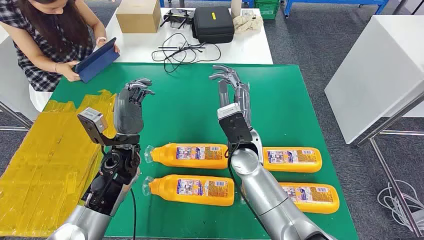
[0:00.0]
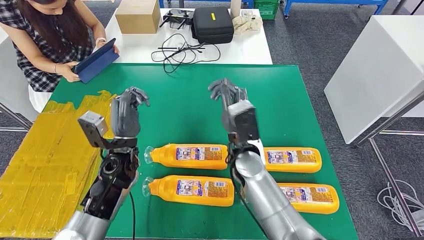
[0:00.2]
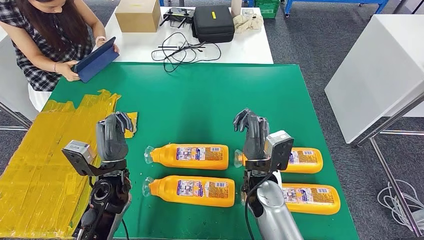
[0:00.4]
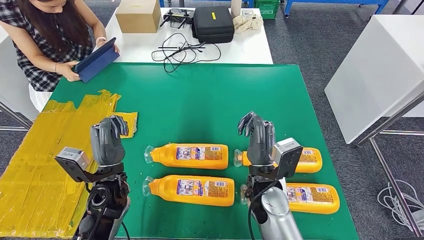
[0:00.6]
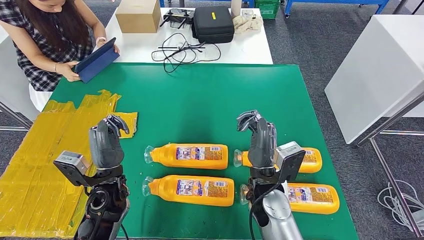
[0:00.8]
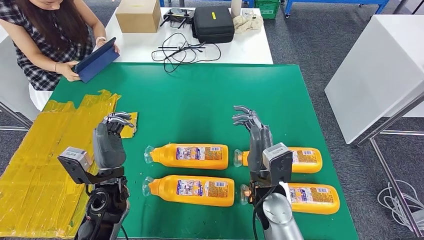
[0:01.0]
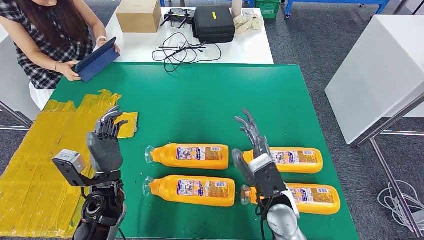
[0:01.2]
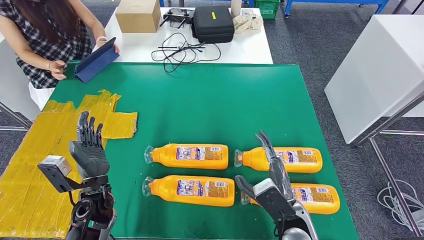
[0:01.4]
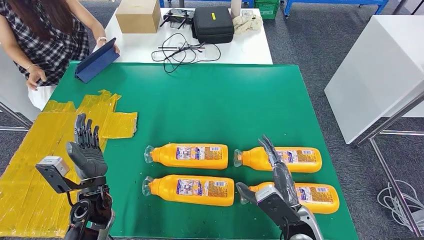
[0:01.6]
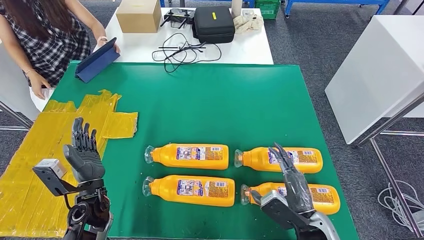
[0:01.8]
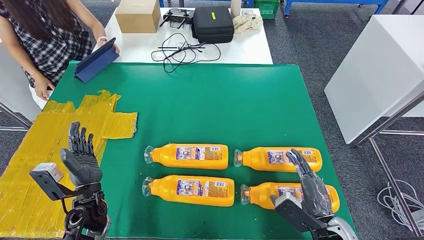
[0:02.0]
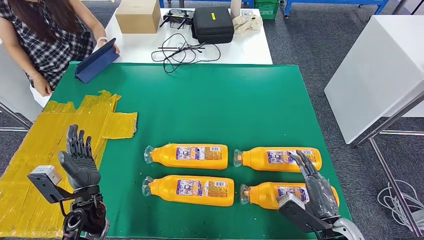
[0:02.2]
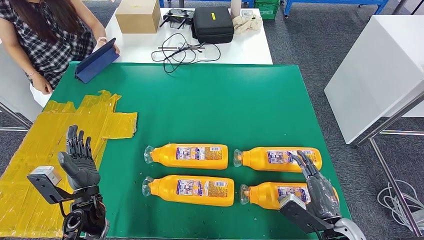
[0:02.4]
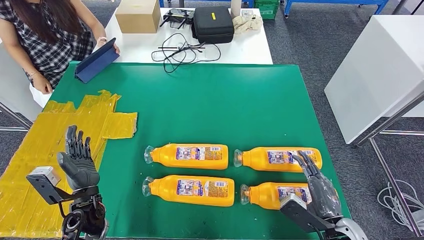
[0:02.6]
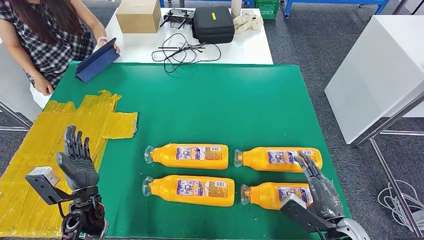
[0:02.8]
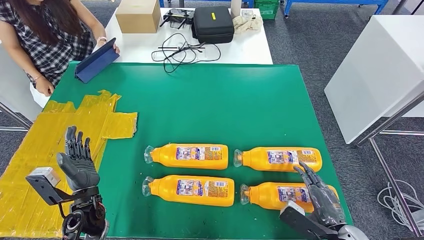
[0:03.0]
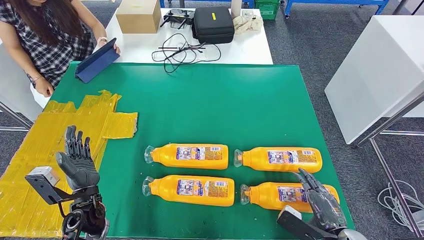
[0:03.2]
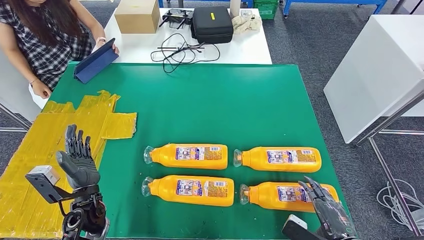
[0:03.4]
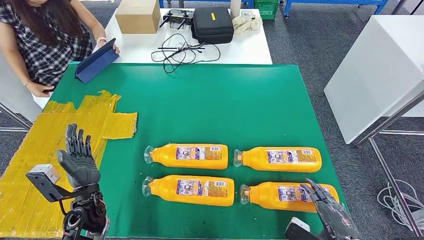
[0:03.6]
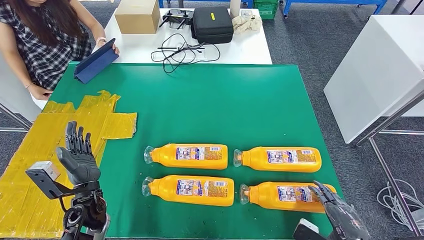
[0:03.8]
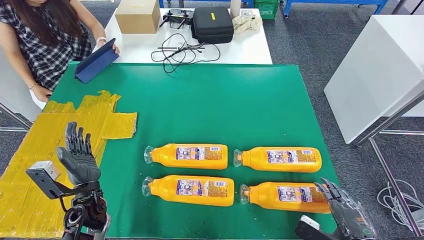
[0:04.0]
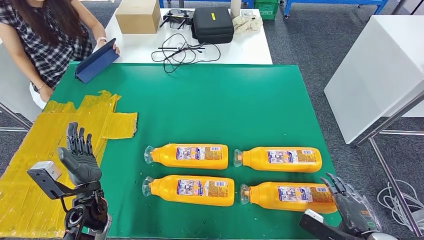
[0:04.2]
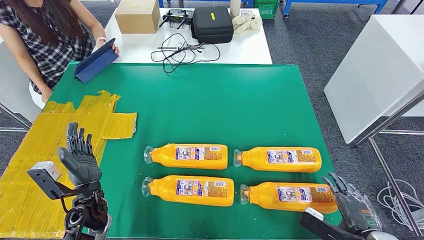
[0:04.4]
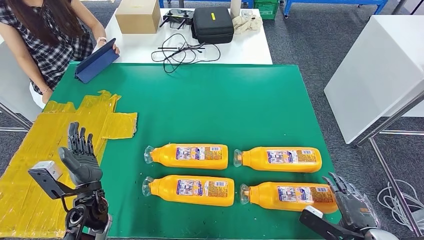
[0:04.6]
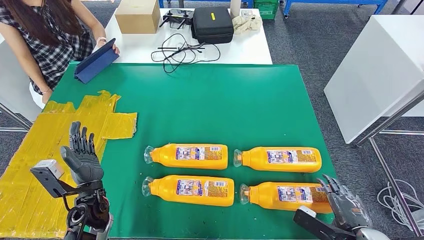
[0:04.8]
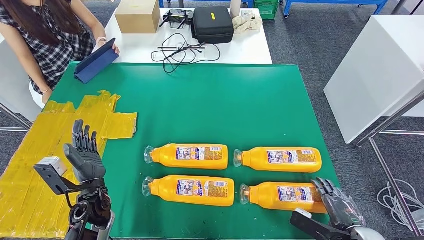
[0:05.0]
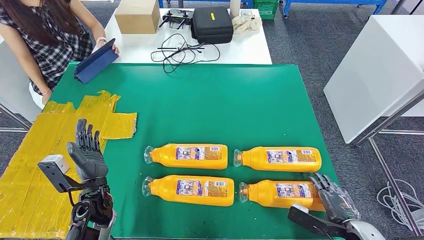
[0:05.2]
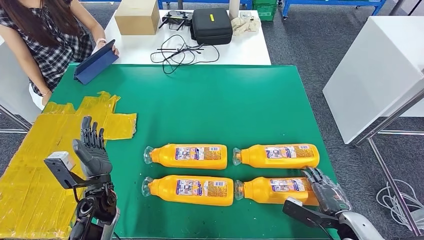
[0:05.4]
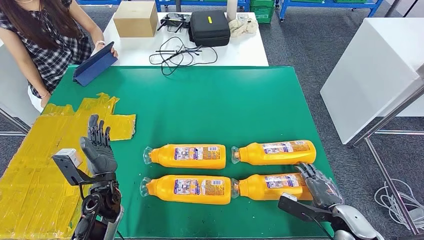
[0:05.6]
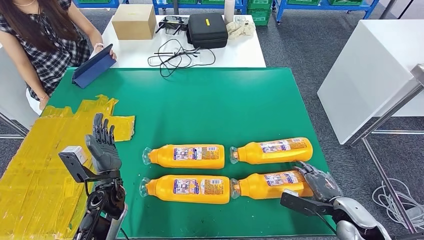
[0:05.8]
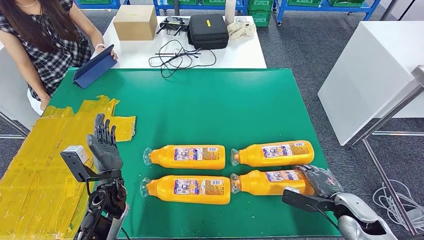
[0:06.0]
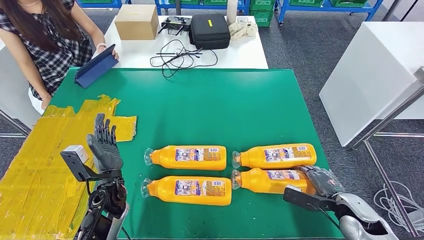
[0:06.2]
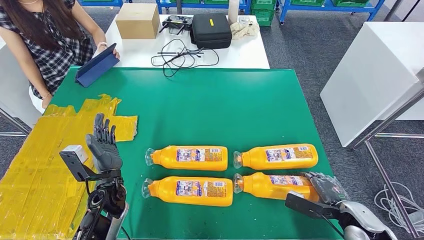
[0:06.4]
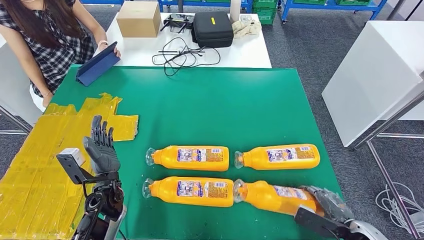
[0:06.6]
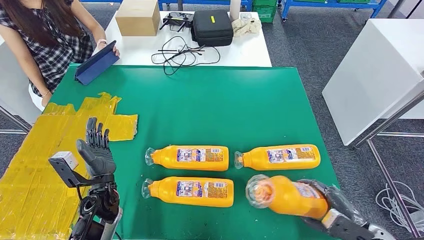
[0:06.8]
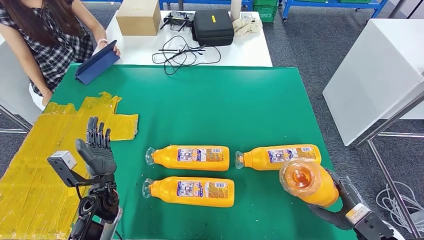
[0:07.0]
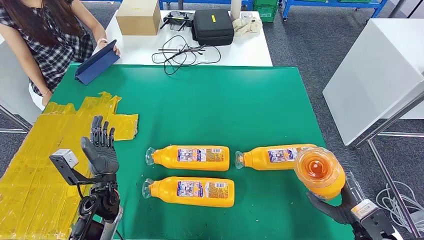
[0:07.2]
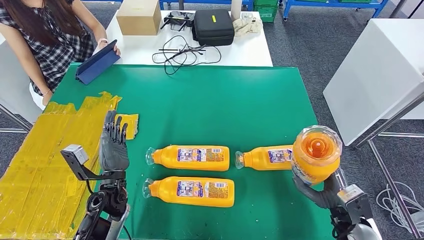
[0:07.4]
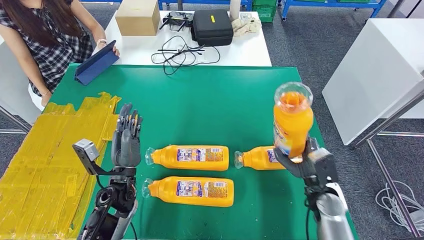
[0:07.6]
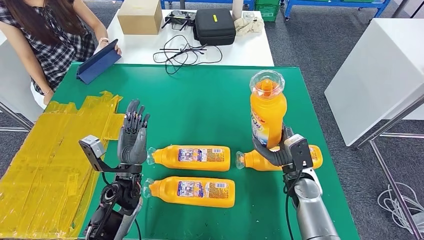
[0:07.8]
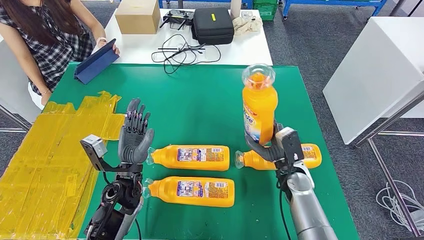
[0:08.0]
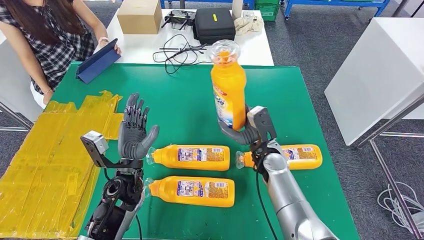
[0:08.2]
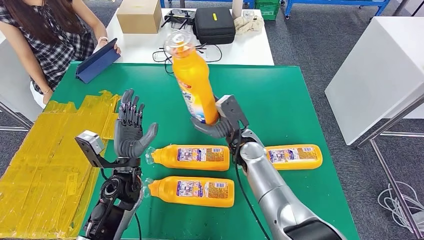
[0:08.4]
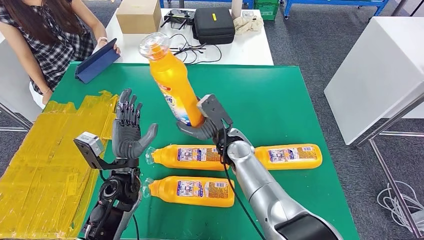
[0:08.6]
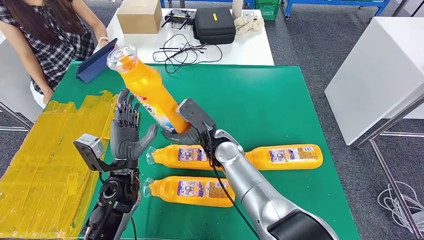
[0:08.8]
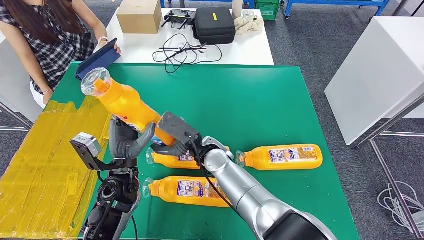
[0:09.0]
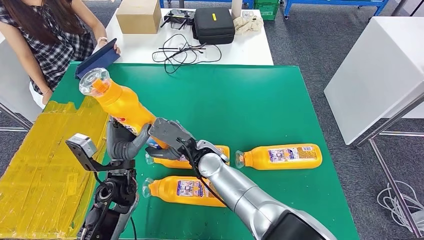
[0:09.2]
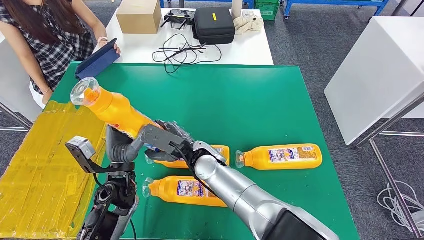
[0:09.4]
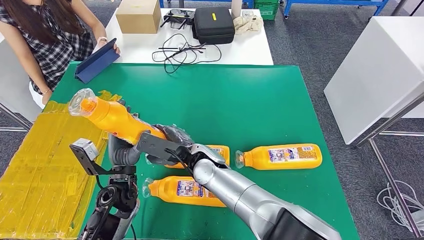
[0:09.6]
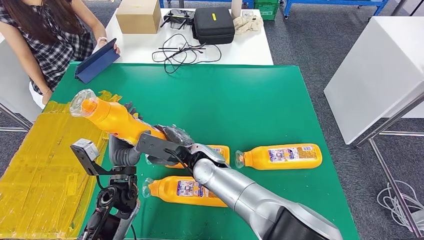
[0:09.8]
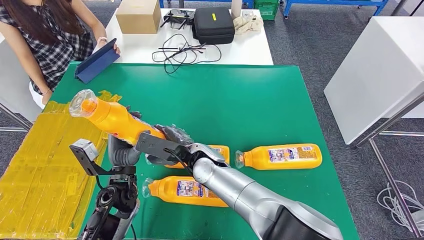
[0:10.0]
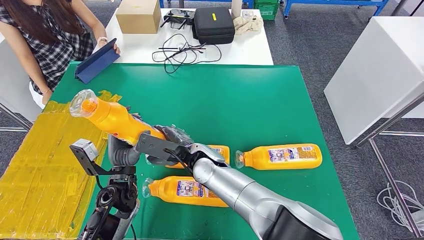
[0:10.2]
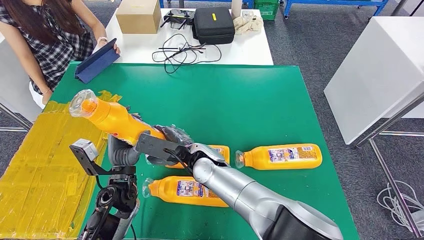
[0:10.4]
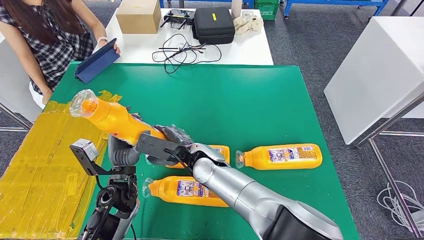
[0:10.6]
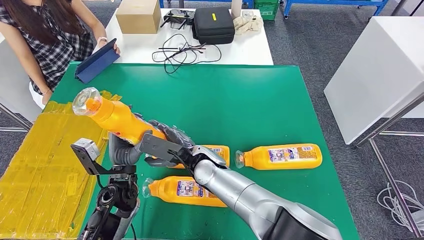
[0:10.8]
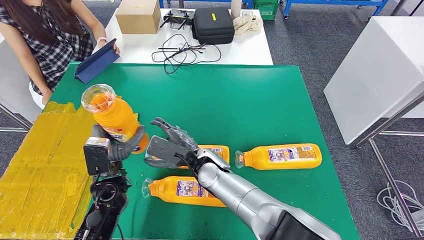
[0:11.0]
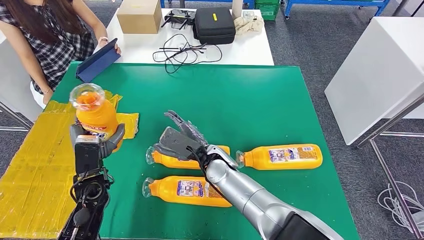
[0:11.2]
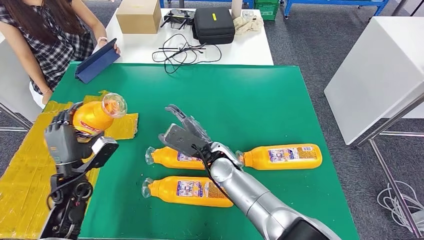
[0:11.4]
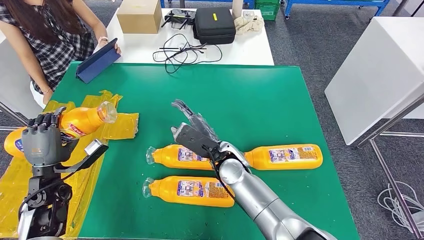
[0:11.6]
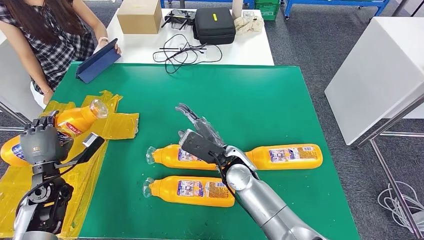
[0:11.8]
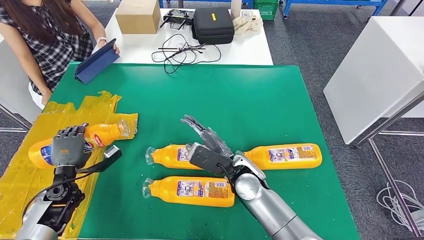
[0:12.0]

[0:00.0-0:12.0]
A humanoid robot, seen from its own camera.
Step, 0:00.0 to 0:08.8: Take the fast-moving consumer goods bottle from the table.
0:01.6 to 0:03.0: The right hand is displaced to the right by about 10 cm.
0:03.0 to 0:04.4: The right hand is displaced to the right by about 5 cm.
0:10.4 to 0:12.0: The right hand goes about 10 cm to the right, while the left hand heads to the left, covering roughly 20 cm.

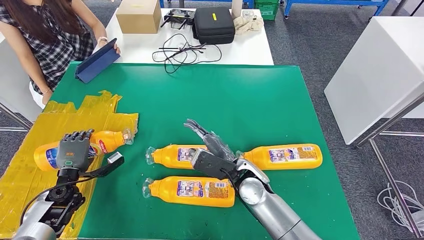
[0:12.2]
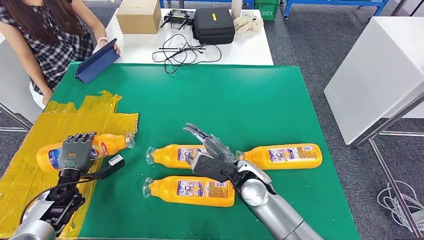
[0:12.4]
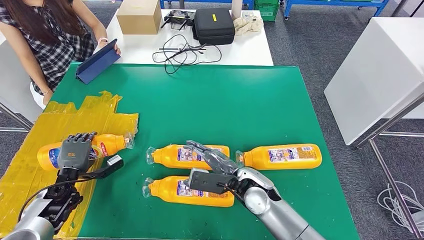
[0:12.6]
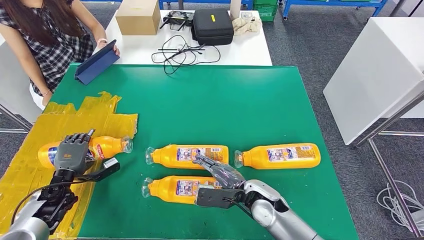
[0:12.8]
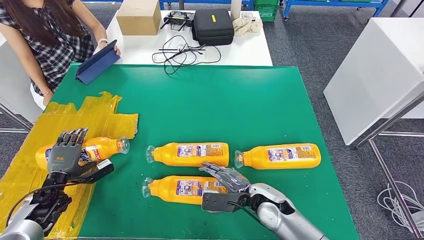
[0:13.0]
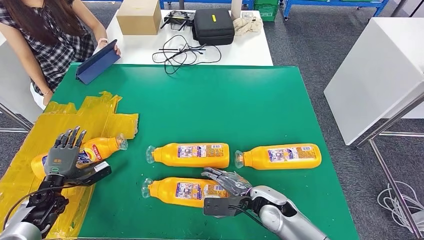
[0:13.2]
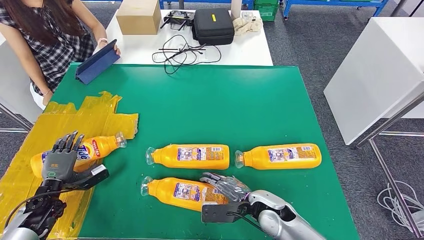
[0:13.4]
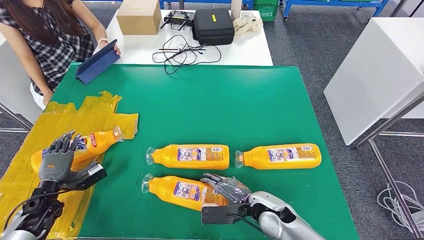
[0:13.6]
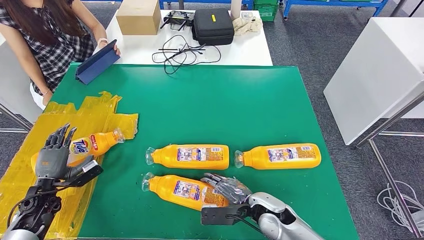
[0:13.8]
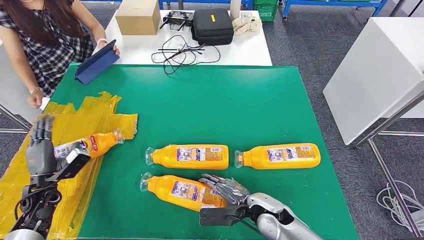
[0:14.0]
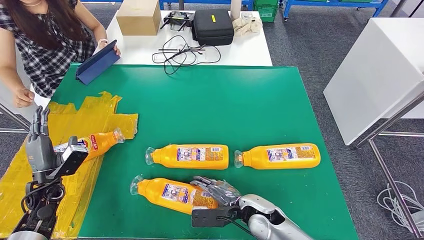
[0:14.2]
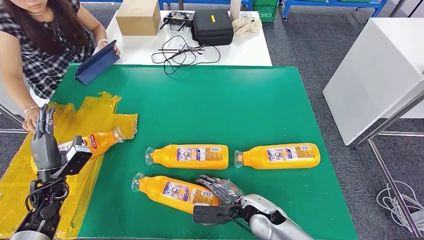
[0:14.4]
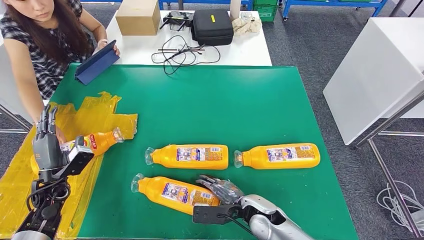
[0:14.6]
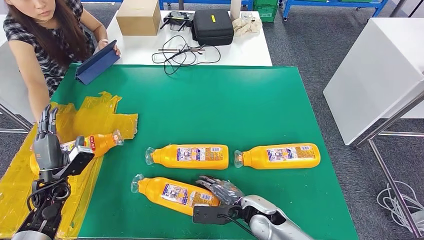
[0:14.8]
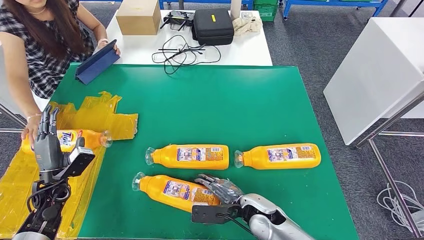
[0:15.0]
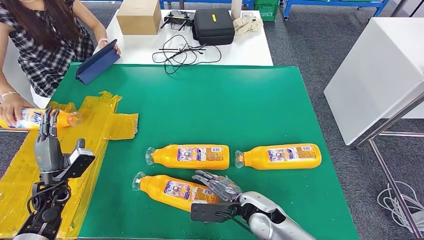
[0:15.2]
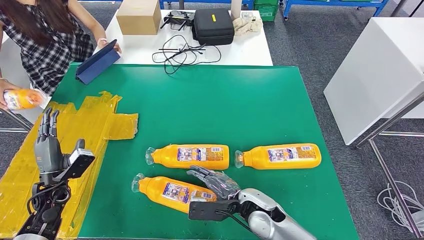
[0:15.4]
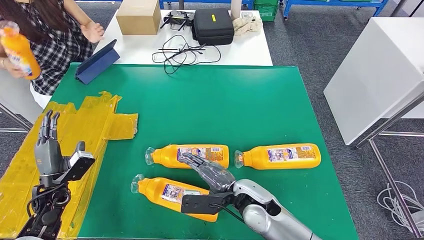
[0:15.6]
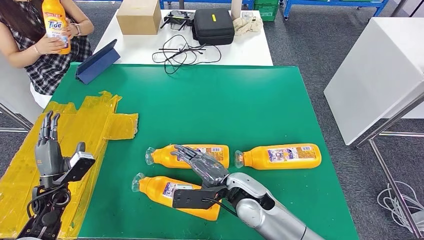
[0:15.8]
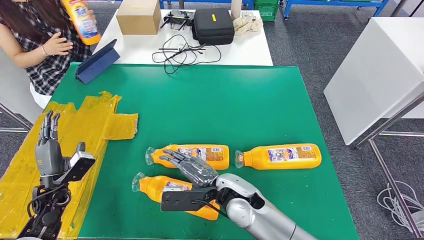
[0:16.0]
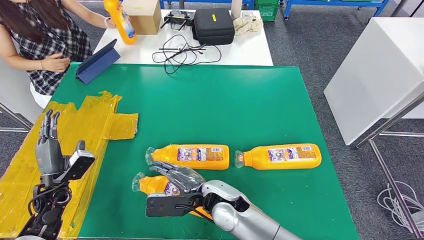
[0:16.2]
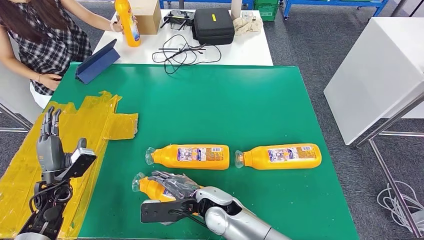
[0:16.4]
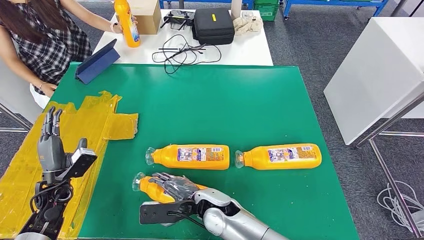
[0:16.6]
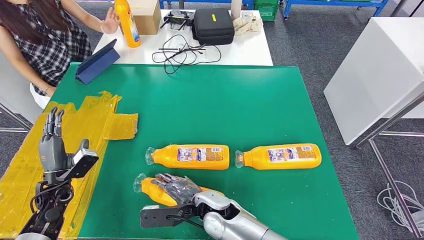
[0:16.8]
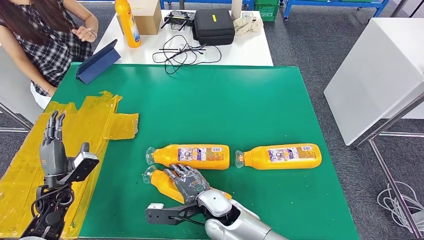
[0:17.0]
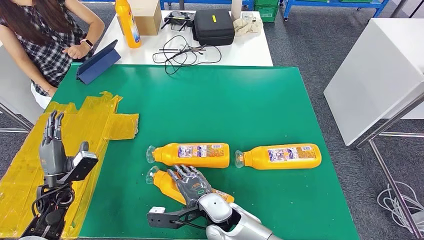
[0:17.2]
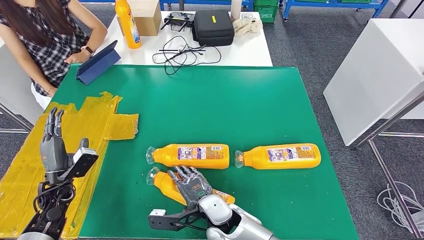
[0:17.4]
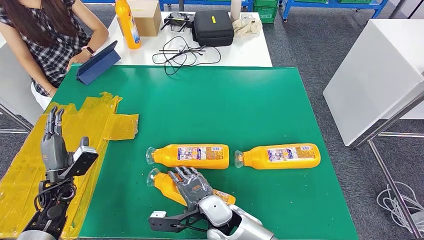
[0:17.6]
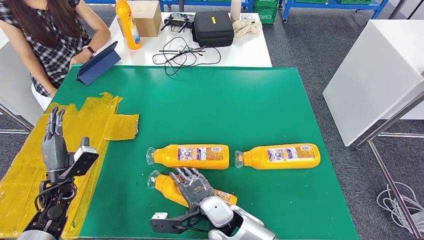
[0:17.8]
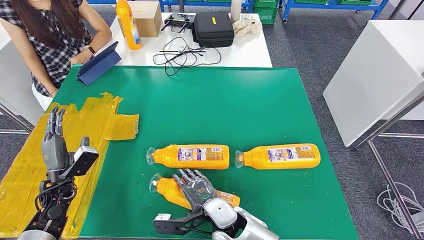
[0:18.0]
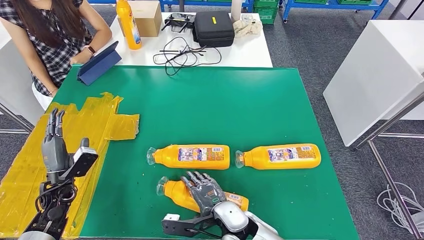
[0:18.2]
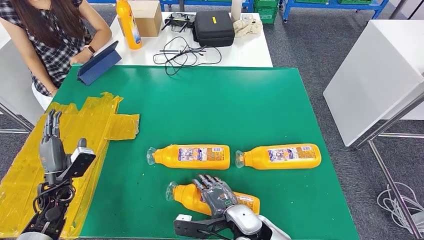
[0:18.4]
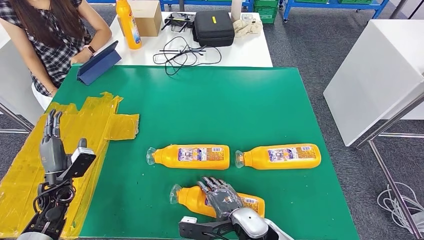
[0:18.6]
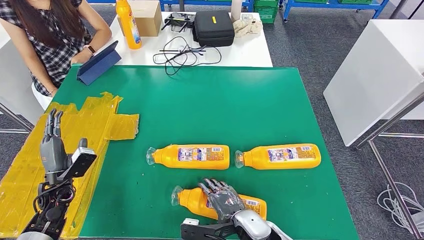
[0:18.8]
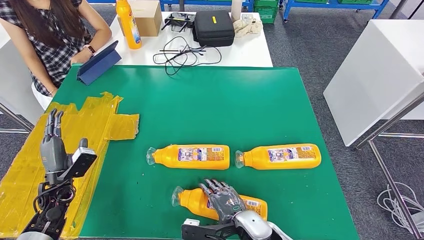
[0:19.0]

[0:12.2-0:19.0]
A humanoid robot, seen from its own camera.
0:12.2 to 0:13.6: The right hand travels to the right, downward and backward by some 10 cm. Meanwhile the left hand moves to the left, about 5 cm.
0:13.6 to 0:15.0: The left hand ends up some 5 cm from where it was.
0:15.0 to 0:16.2: The right hand shifts about 10 cm to the left and upward.
0:16.2 to 0:17.6: The right hand goes roughly 5 cm downward.
0:17.6 to 0:19.0: The right hand heads to the right, covering roughly 10 cm.
